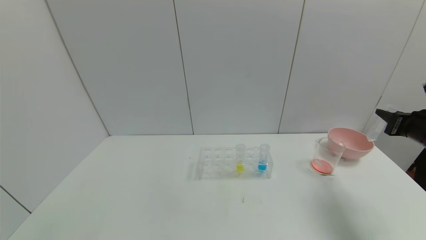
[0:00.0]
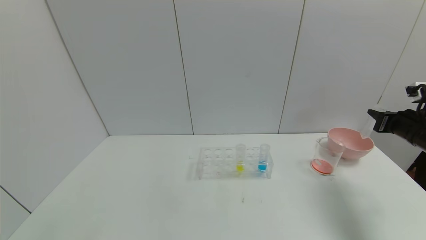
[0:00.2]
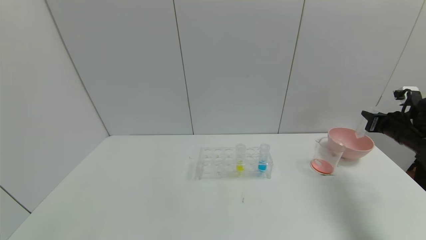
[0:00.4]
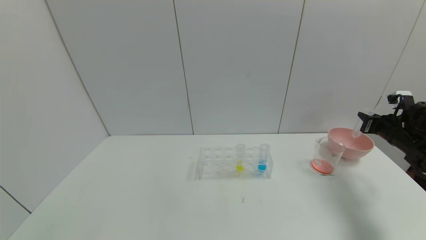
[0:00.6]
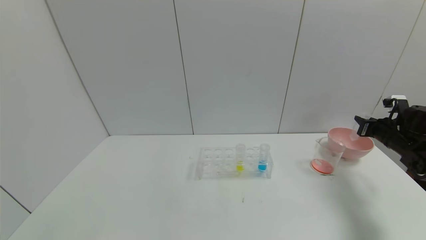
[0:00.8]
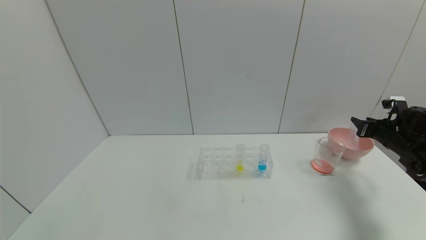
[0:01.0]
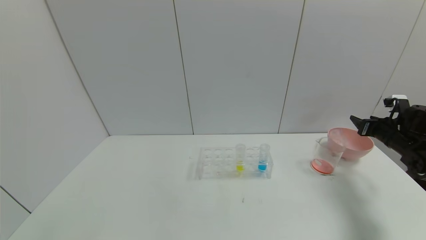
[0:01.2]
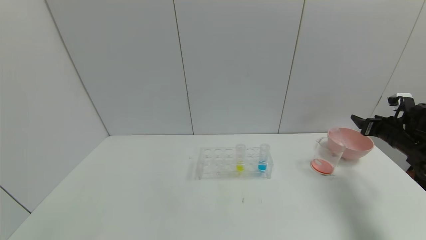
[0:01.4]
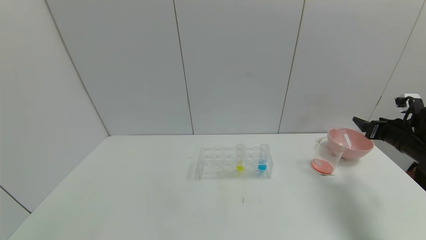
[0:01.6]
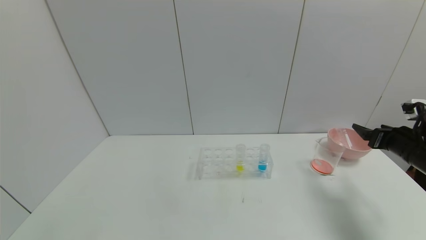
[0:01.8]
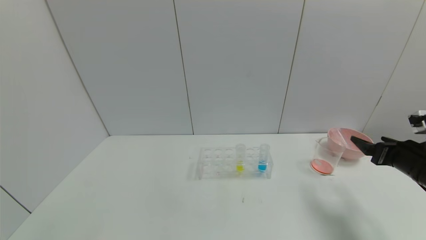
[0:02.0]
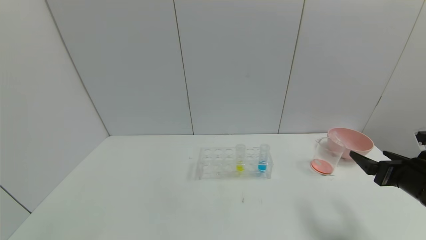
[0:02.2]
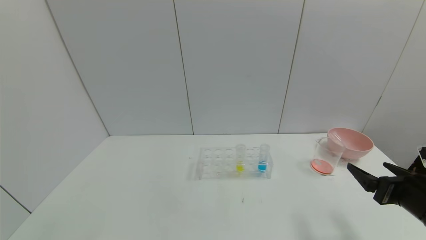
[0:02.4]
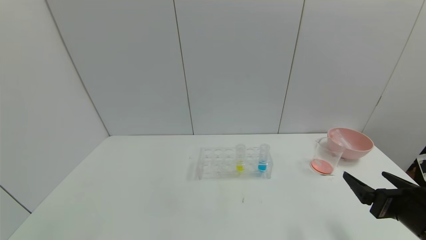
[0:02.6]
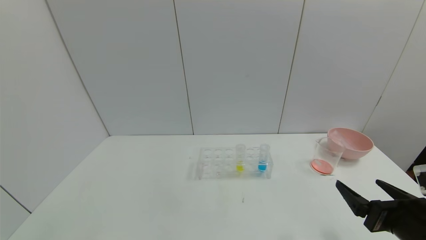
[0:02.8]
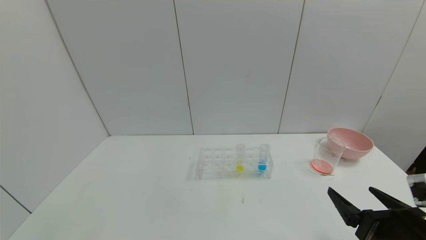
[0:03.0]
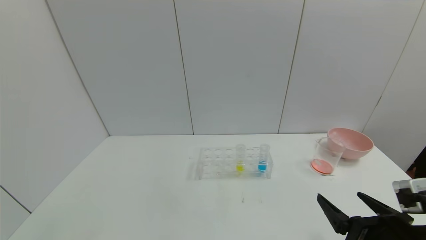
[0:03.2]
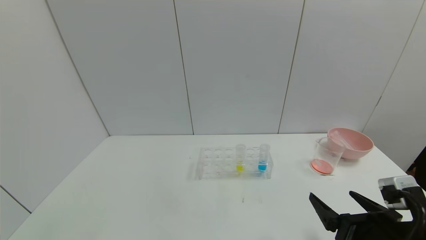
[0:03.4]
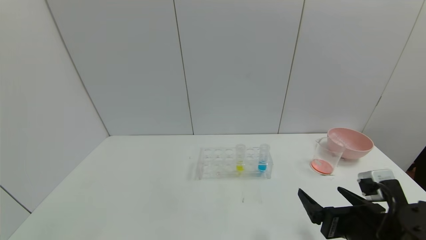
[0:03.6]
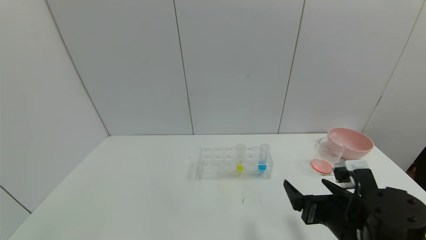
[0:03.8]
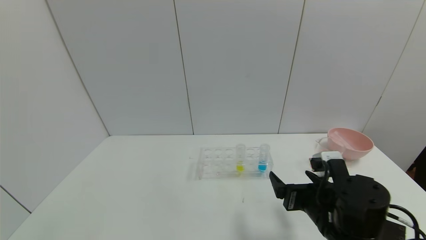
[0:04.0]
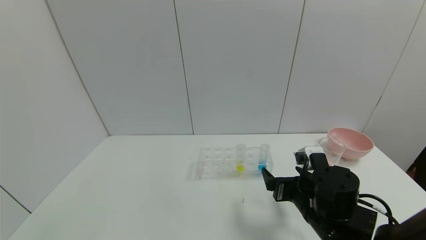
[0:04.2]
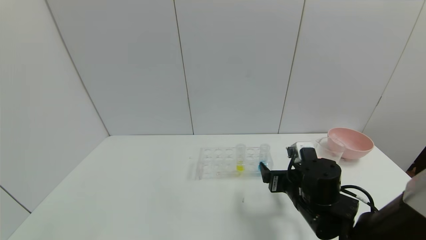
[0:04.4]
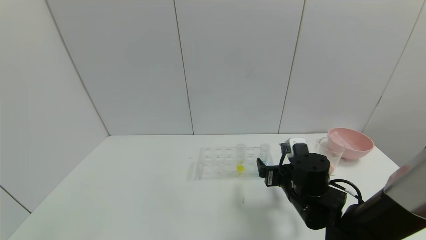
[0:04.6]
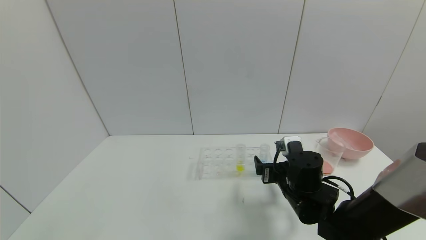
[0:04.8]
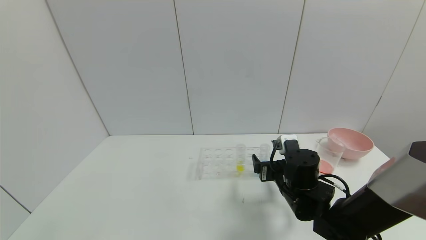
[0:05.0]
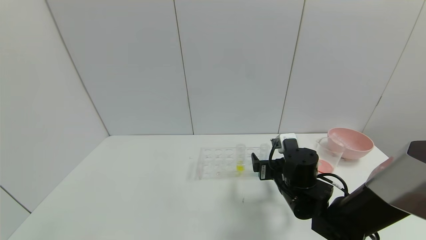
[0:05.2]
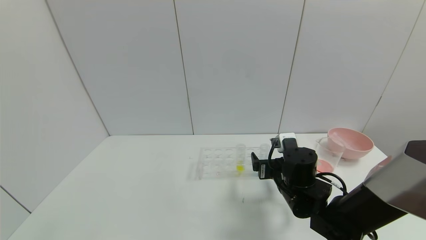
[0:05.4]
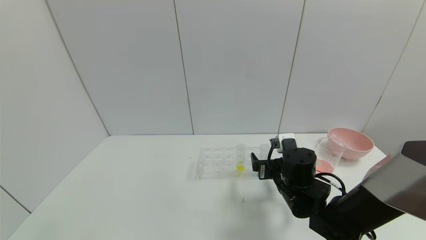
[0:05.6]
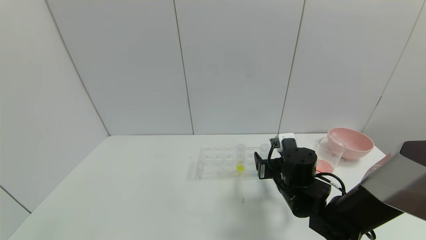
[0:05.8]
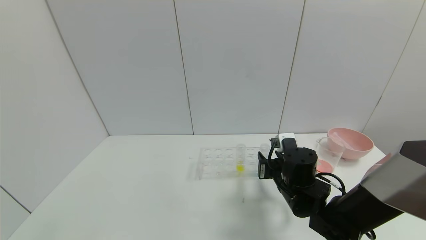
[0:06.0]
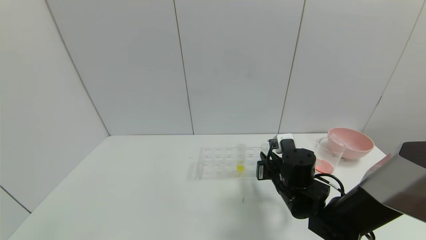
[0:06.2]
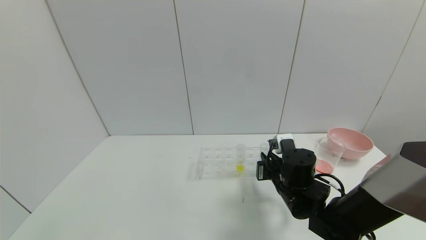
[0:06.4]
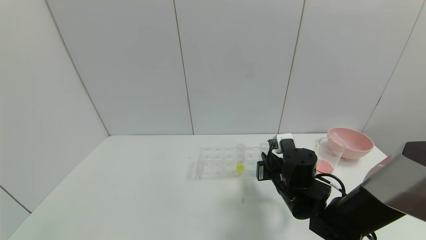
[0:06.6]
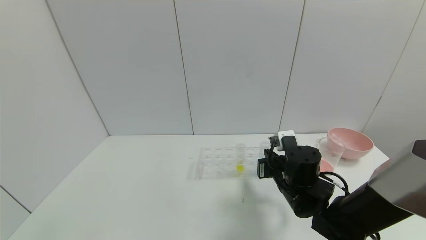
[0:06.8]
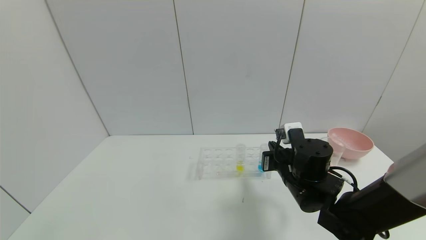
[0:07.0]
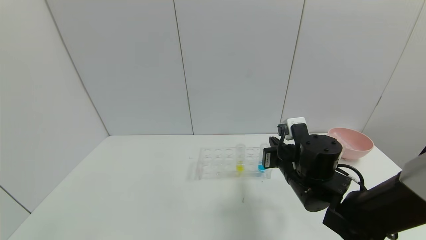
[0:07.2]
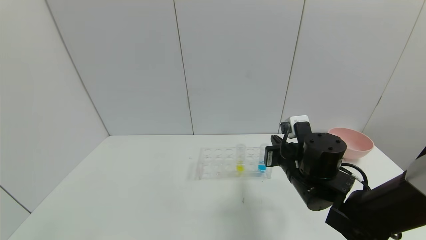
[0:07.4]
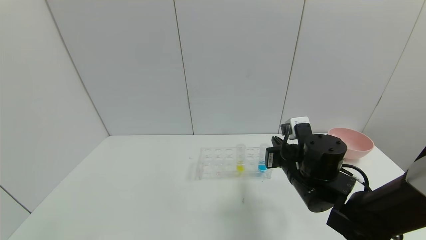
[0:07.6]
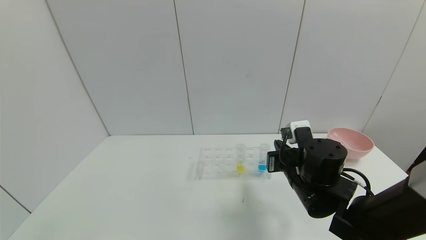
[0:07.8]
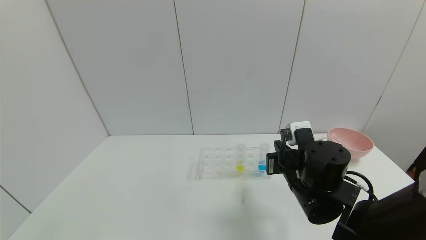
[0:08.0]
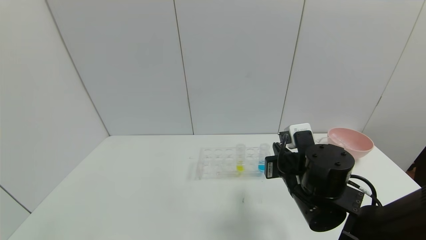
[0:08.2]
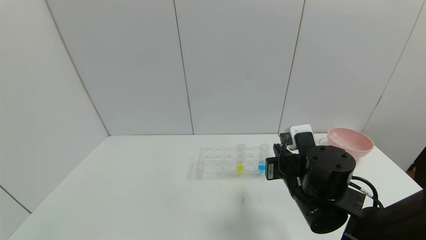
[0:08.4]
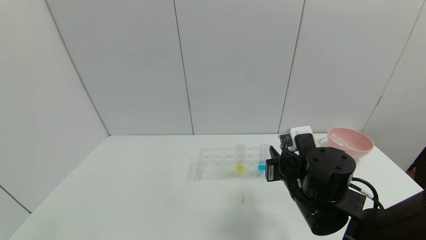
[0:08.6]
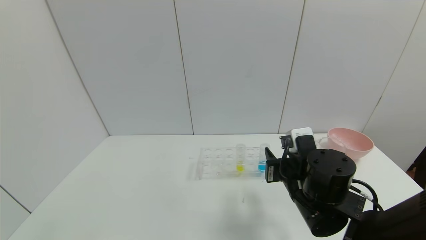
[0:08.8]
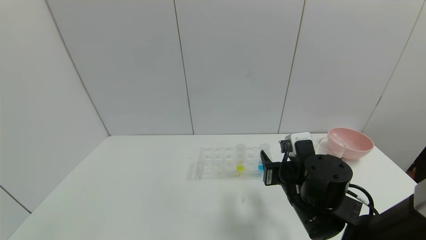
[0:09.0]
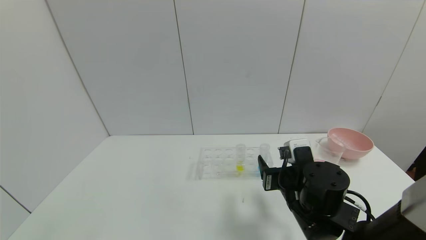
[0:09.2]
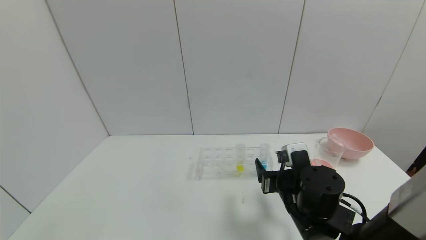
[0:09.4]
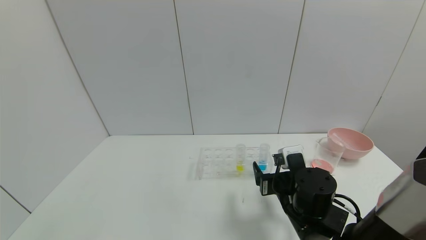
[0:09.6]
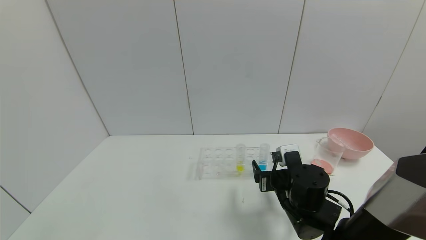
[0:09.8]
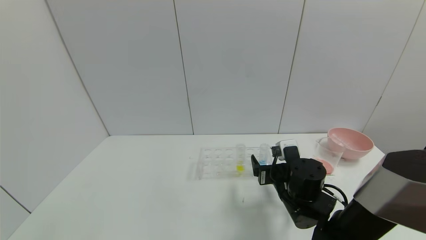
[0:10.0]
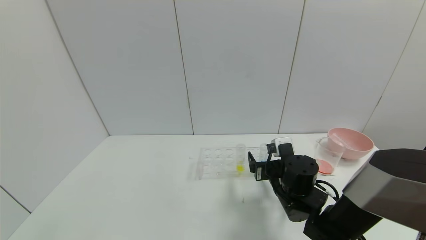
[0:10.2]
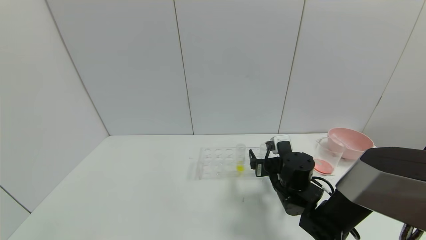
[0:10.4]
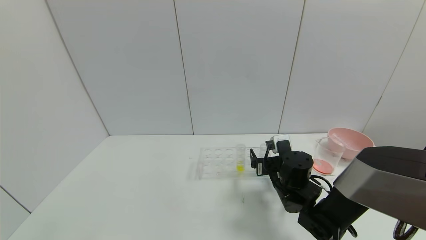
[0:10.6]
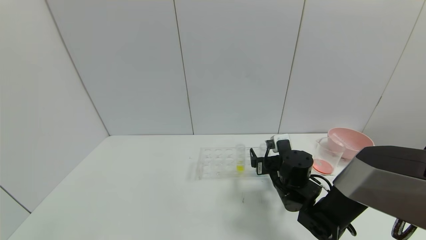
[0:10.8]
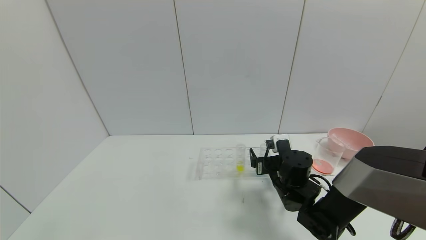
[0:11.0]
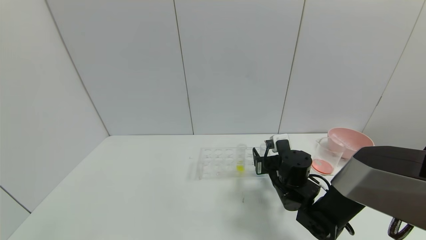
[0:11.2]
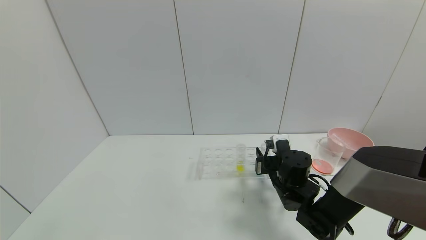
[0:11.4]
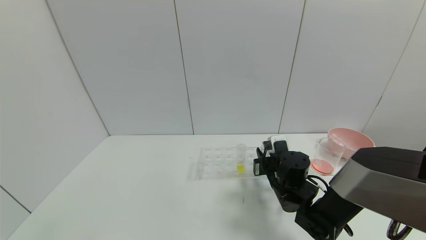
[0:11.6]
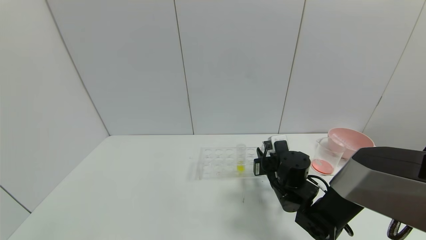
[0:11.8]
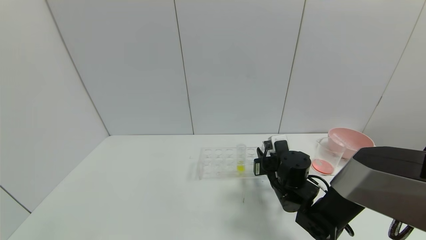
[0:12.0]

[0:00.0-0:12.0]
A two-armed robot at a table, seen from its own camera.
Task of the whole recording: pick up the test tube with red pigment and the test tube with blue pigment by grippers and pour them into the container.
Step, 0:01.6 to 0:11.6: Grasp the blue reagent with the right gripper.
0:00.0 to 0:01.6: The right gripper goes approximately 5 cm forward, and opens its fingers.
0:01.6 to 0:03.0: The right gripper travels backward and to the left by some 25 cm.
0:03.0 to 0:04.4: The right gripper travels forward and to the left by roughly 15 cm.
0:04.4 to 0:06.0: The right gripper closes up.
0:06.0 to 0:07.6: The right gripper ends up approximately 5 cm from where it was, and closes up.
0:07.6 to 0:09.0: The right gripper opens up.
0:09.0 to 0:10.4: The right gripper is displaced forward and downward by about 10 cm.
0:10.4 to 0:12.0: The right gripper closes up.

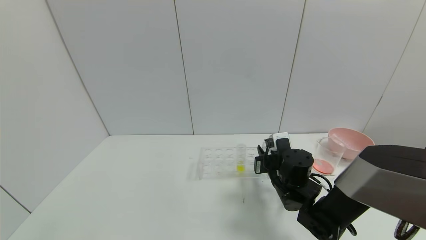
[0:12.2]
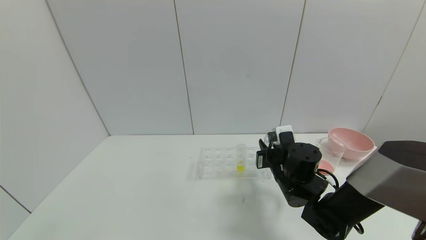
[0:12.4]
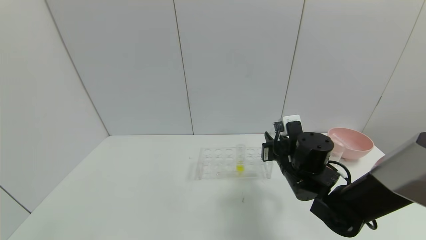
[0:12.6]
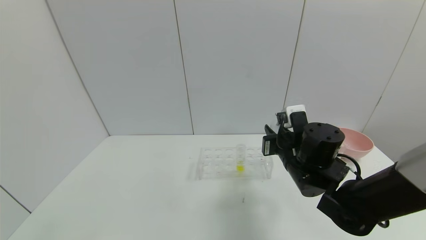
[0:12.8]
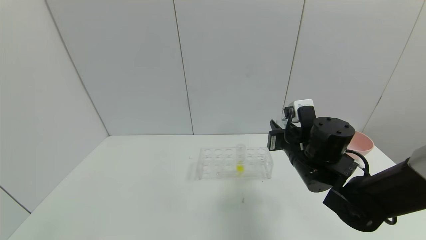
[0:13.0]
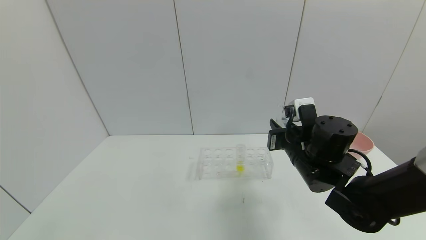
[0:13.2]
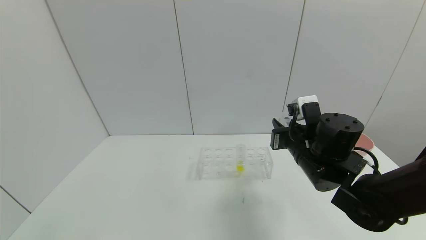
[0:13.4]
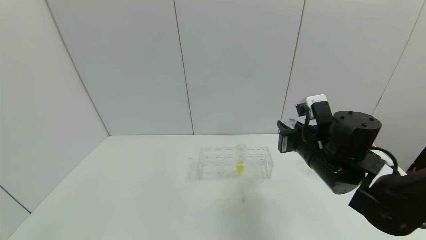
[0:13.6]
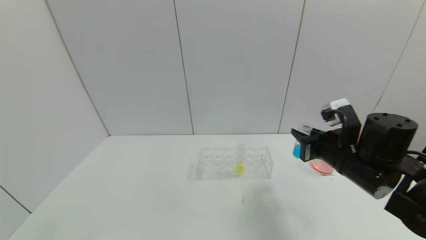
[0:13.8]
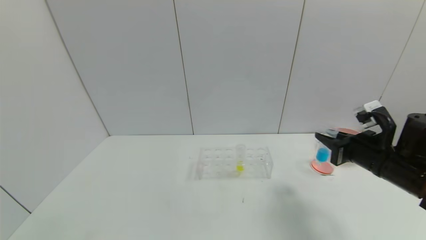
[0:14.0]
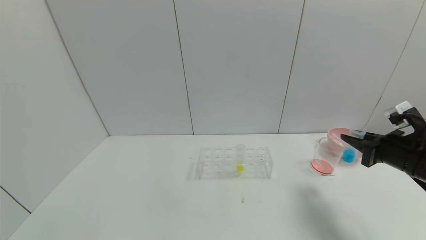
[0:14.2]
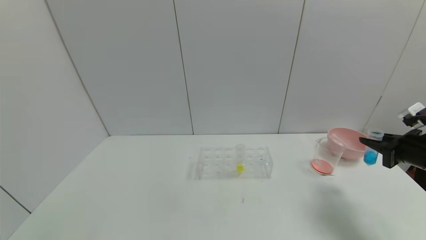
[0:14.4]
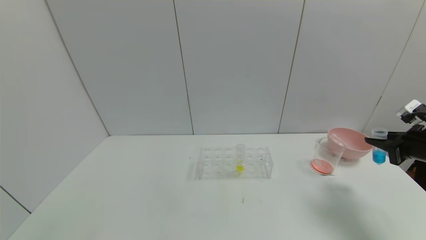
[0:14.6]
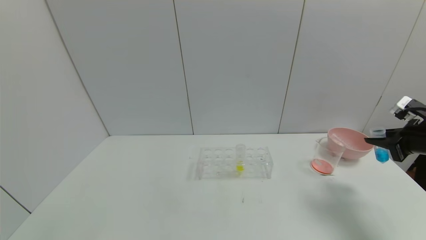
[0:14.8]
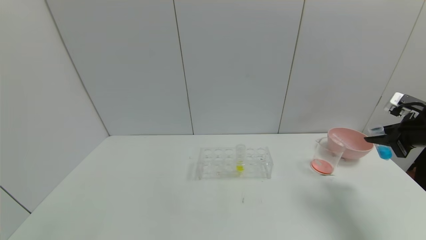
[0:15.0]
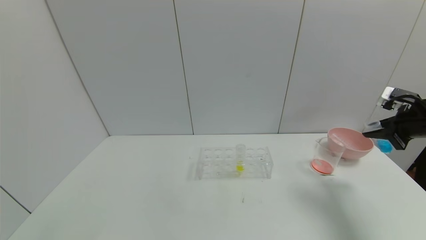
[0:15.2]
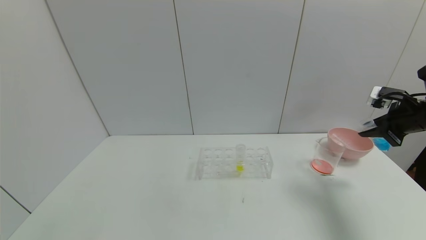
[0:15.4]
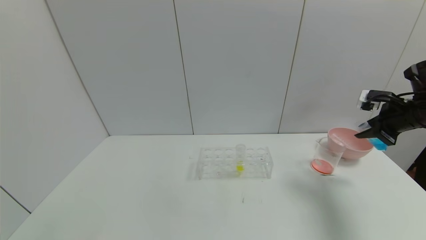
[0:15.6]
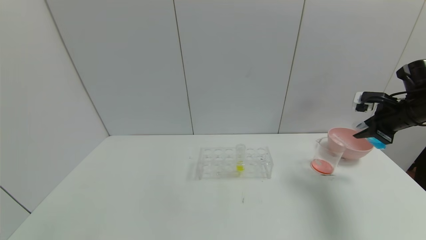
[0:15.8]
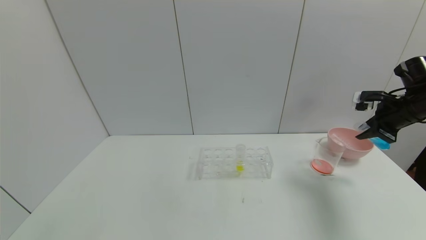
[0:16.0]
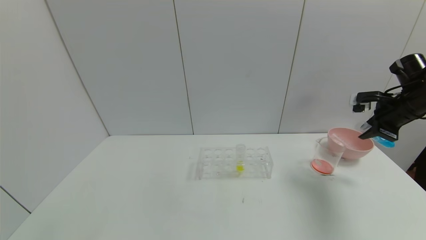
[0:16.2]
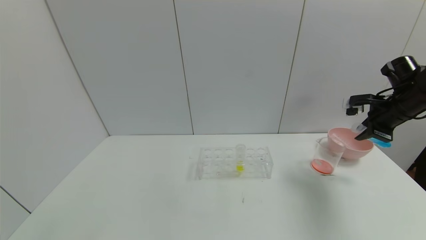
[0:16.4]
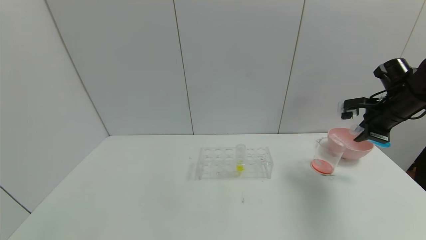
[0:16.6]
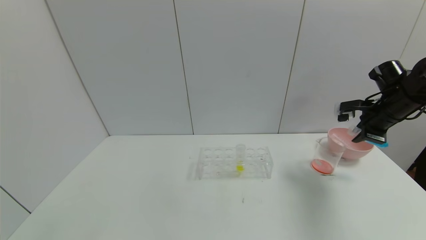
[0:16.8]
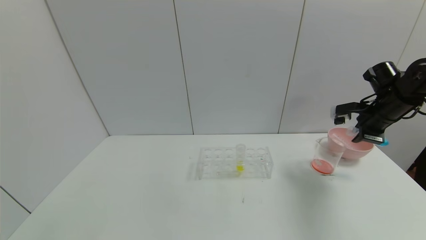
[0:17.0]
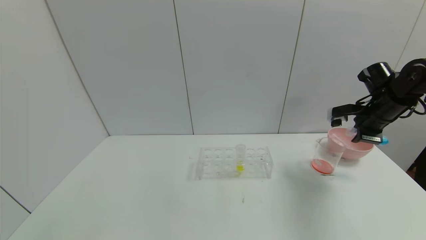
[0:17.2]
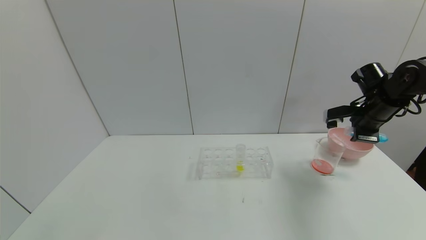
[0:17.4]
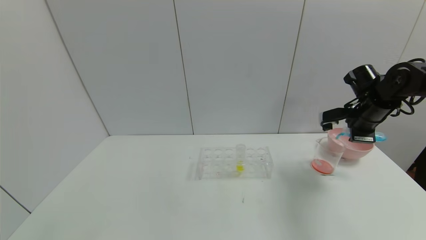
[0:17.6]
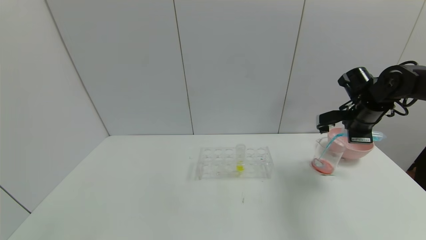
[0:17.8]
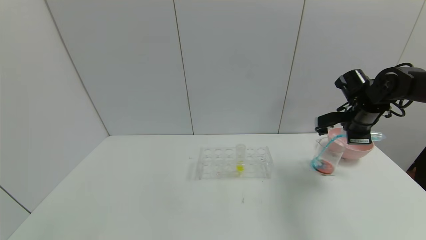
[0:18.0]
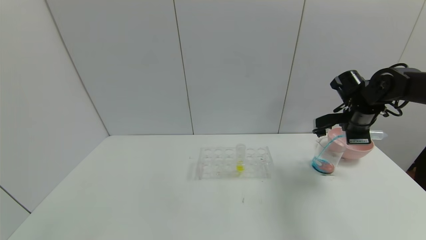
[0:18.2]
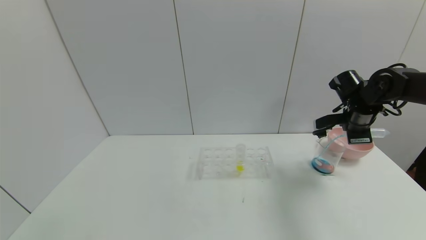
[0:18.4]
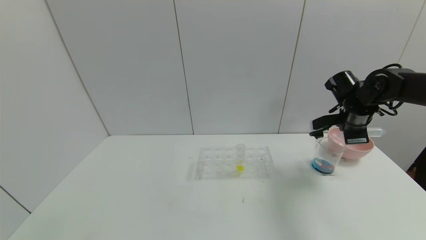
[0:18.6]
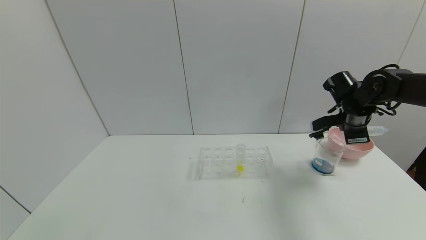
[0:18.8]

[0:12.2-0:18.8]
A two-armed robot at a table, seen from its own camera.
Task of the whole recording: pick up the test tube with red pigment and the test tube with blue pigment by grippers and pour them into the container.
0:12.2 to 0:13.8: The right gripper goes approximately 15 cm upward, to the right and backward.
0:13.8 to 0:15.4: The right gripper heads to the right, covering some 20 cm.
0:15.4 to 0:17.2: The right gripper heads forward and to the left, covering about 10 cm.
0:17.2 to 0:18.8: The right gripper is displaced to the left by some 5 cm.
